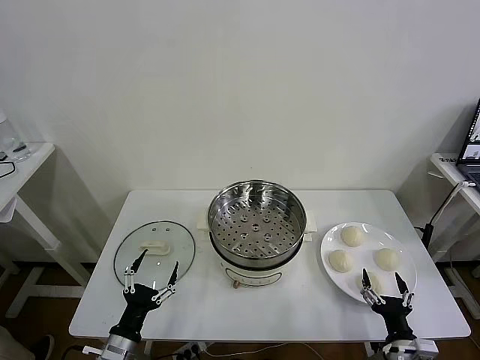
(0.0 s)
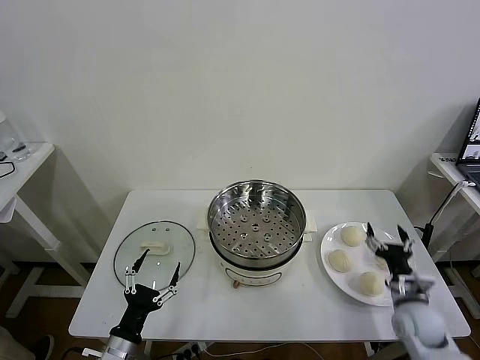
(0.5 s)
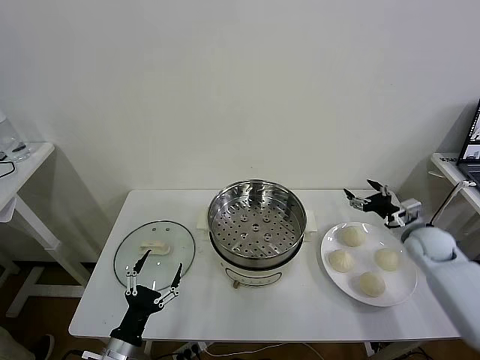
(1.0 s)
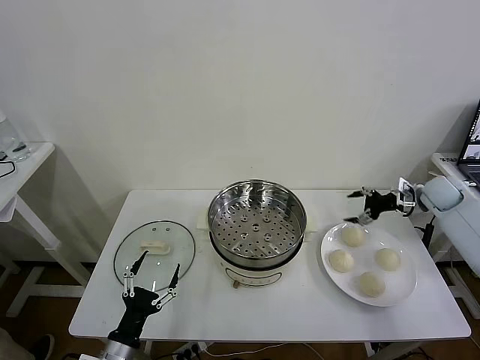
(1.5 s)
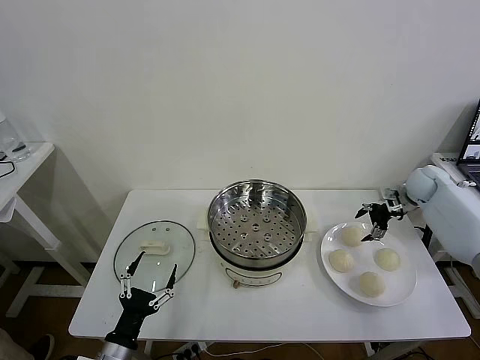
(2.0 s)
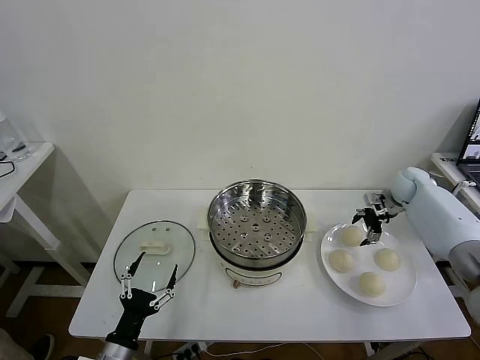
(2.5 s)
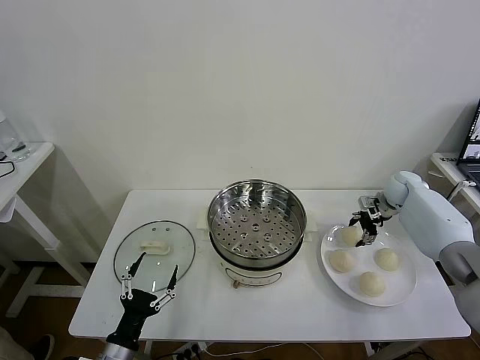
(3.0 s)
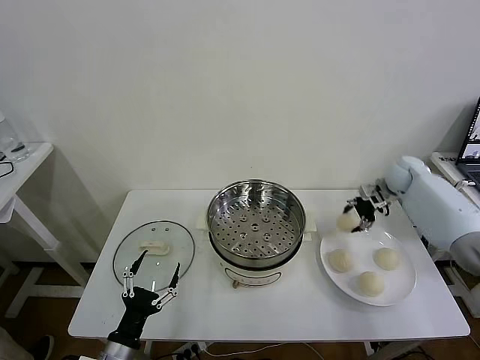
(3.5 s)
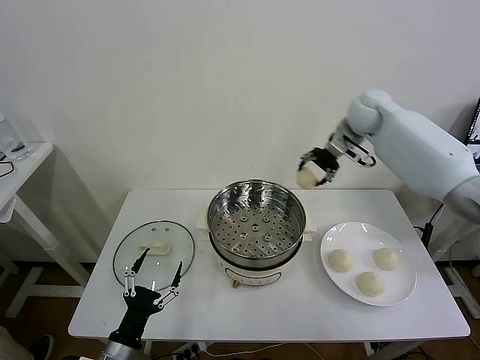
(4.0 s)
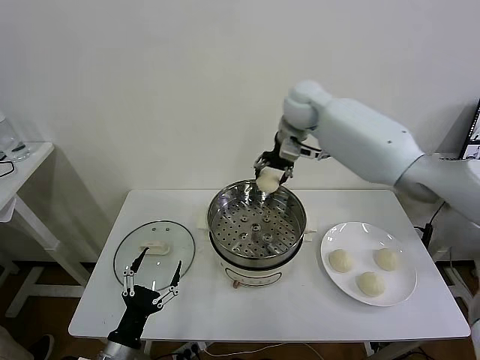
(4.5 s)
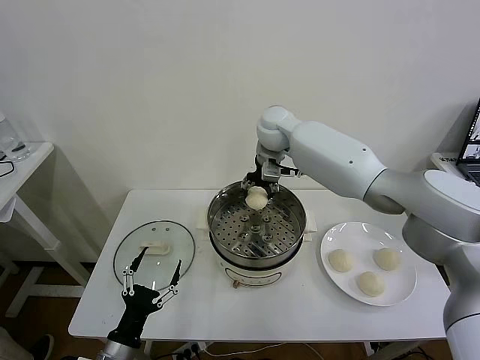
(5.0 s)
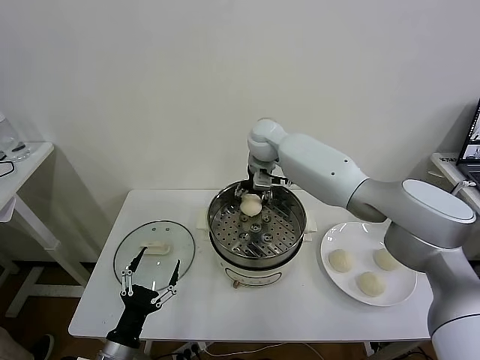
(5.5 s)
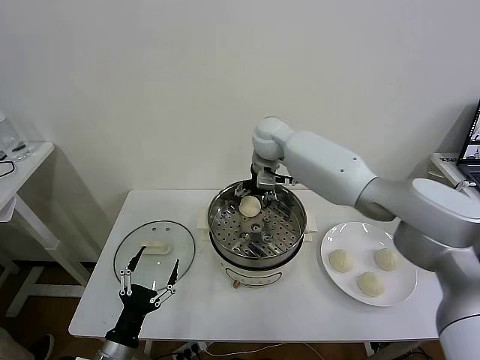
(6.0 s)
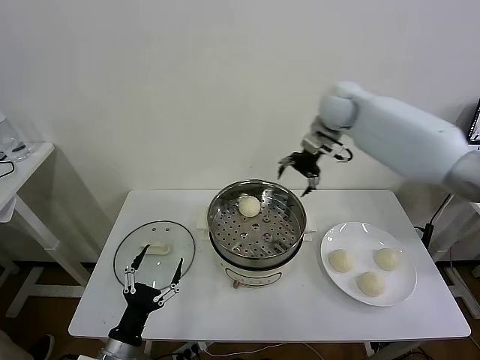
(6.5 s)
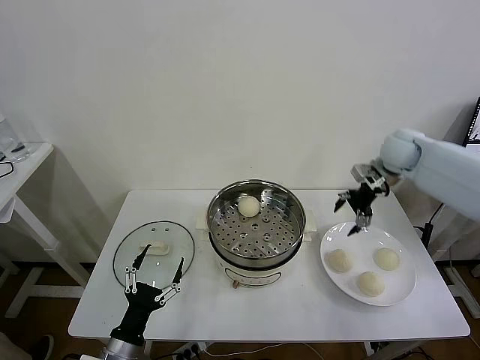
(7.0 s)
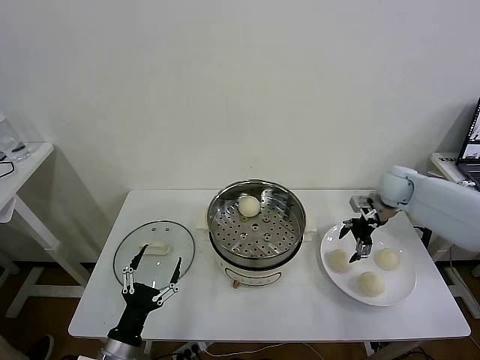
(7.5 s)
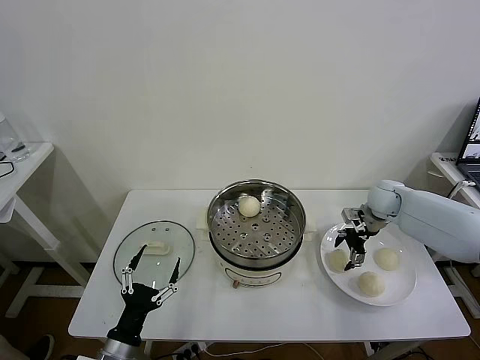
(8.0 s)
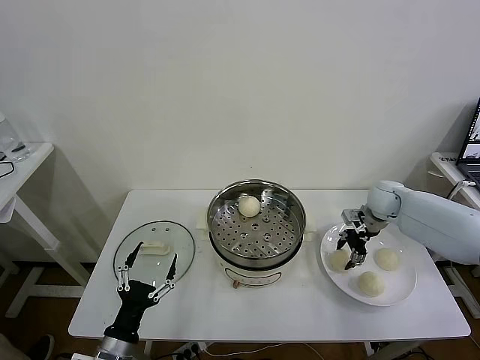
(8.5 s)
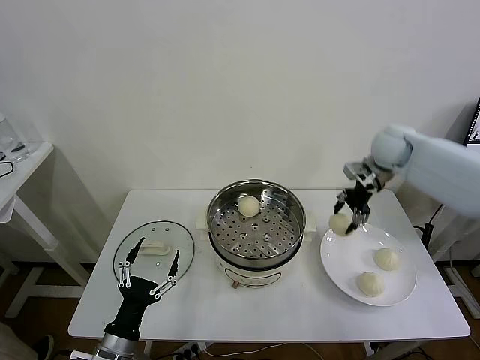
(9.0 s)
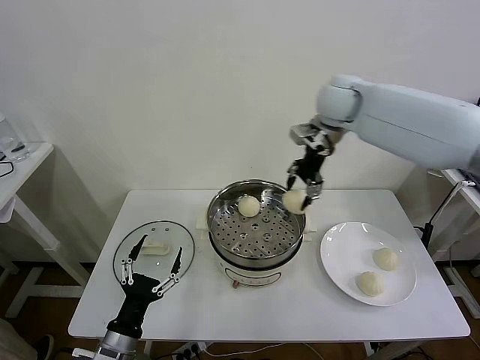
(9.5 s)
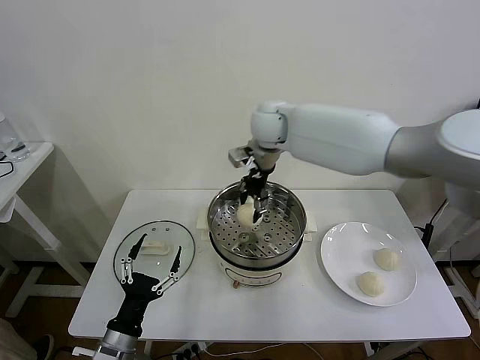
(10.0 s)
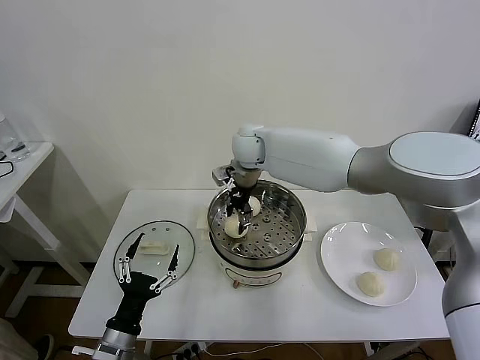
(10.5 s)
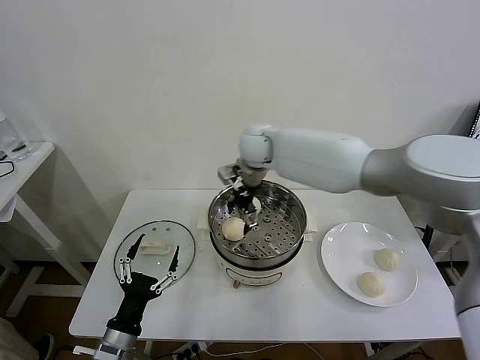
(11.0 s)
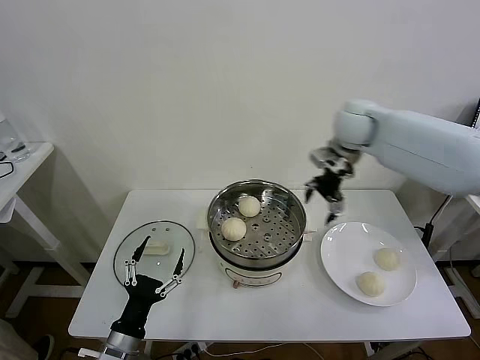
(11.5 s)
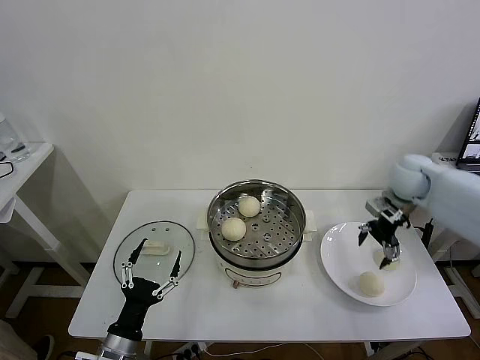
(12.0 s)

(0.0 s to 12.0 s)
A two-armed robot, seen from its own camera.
Task of the whole recording: take steamed baozi put them in steamer then cover it.
Step, 0.0 s - 3.0 s: Grasp the baozi in the plate with right gripper.
Step, 3.5 s - 5.5 s: Place the baozi on the steamer with right gripper.
Step, 6.0 s - 8.0 s: Grasp the baozi in the plate with right gripper.
Step, 8.5 s - 10.5 s: Place the baozi on the steamer with right gripper.
2.0 s - 4.0 s: The right gripper travels to the left and upward by about 30 cm, and closes its fingers.
4.0 s - 6.0 s: The right gripper travels to the left by approximately 15 cm, and opens.
6.0 s - 8.0 s: The right gripper shifts approximately 35 cm to the right and downward.
8.0 s - 10.0 s: The right gripper heads to the left and upward, covering about 35 cm, and closes up.
10.0 s - 12.0 s: The right gripper goes roughly 35 cm to the right, and opens up.

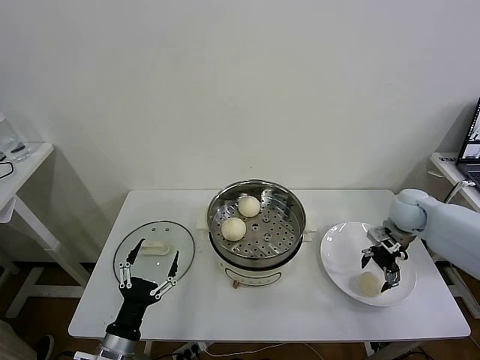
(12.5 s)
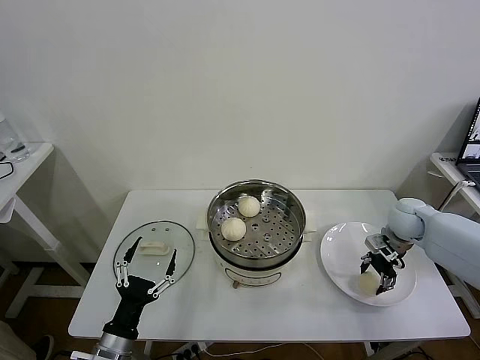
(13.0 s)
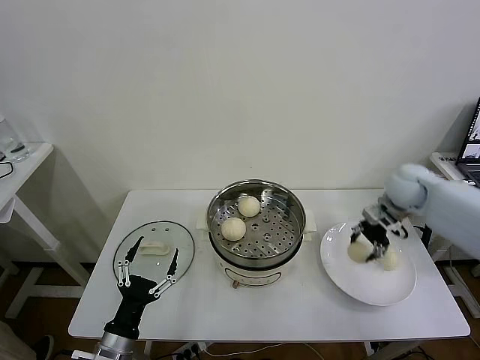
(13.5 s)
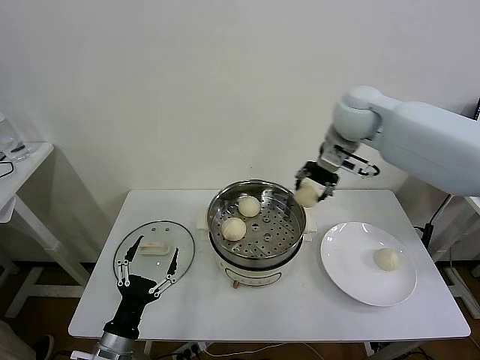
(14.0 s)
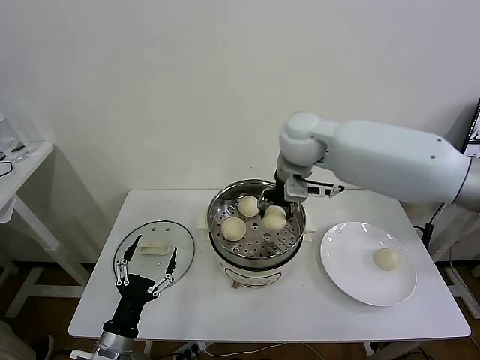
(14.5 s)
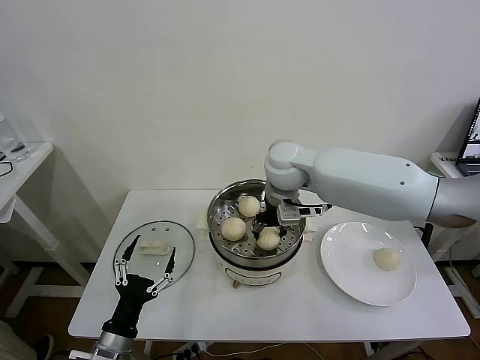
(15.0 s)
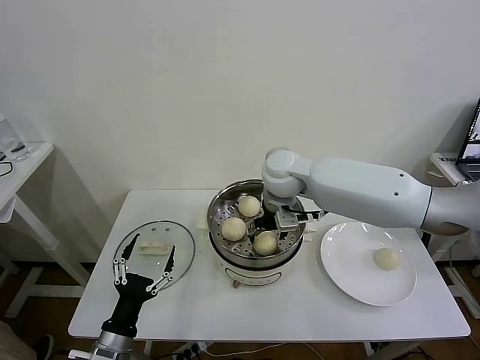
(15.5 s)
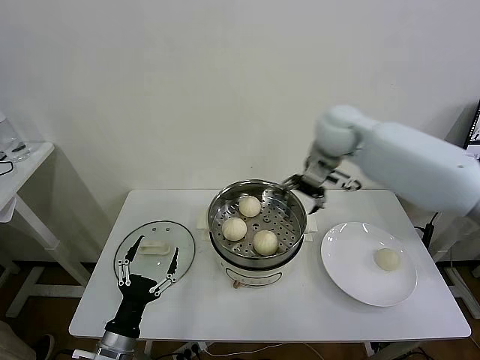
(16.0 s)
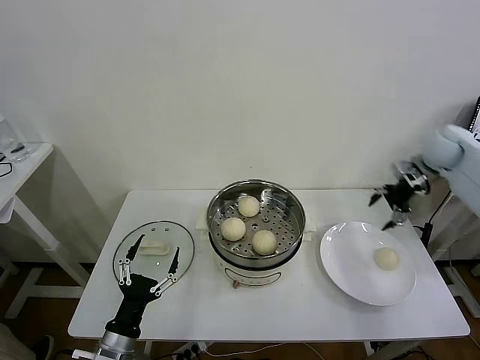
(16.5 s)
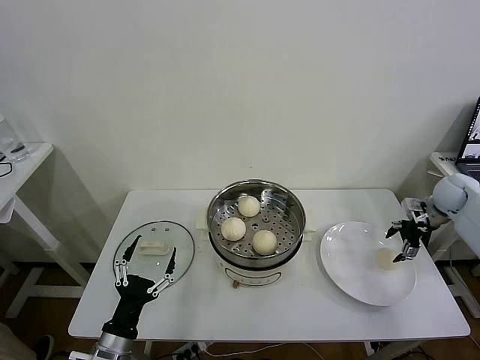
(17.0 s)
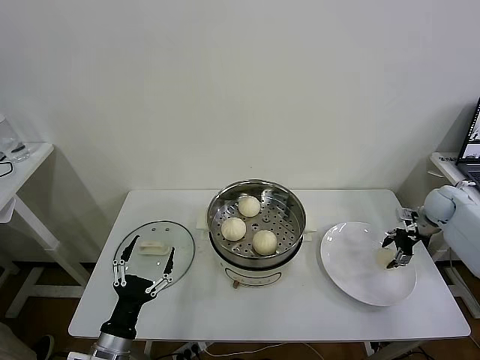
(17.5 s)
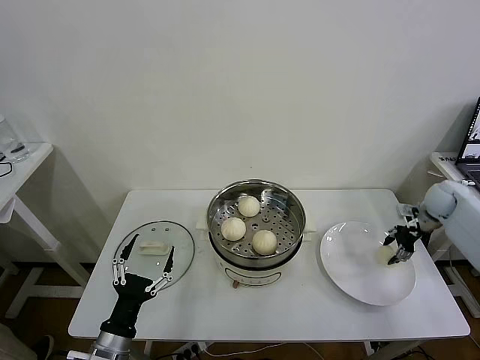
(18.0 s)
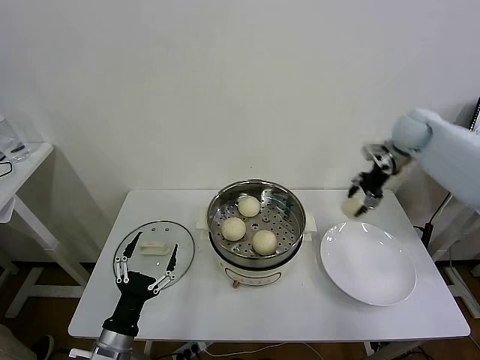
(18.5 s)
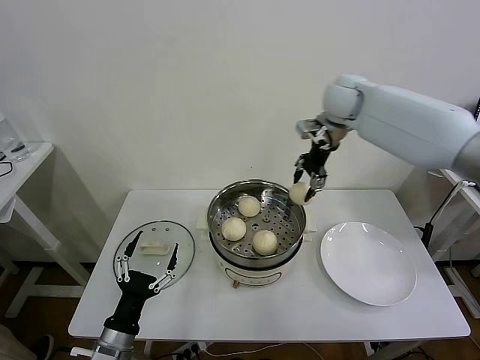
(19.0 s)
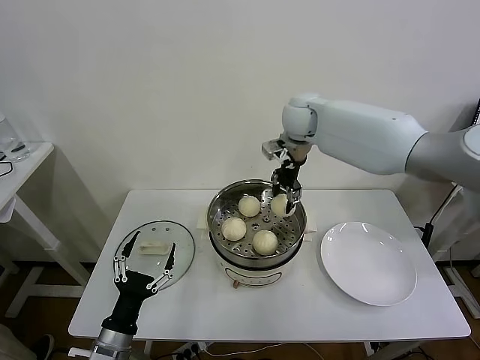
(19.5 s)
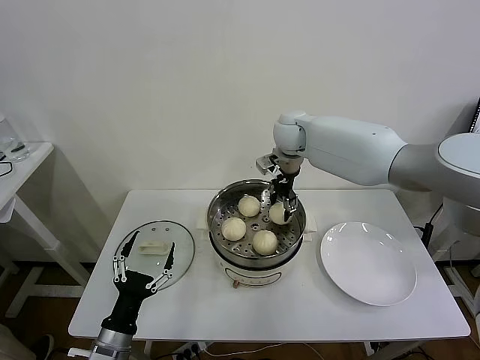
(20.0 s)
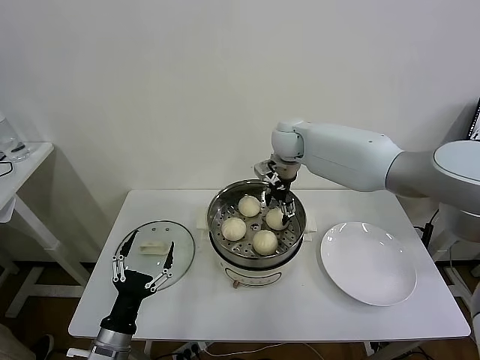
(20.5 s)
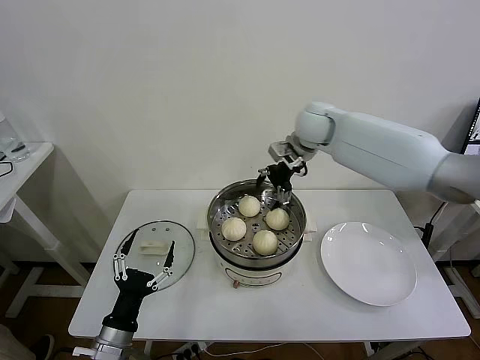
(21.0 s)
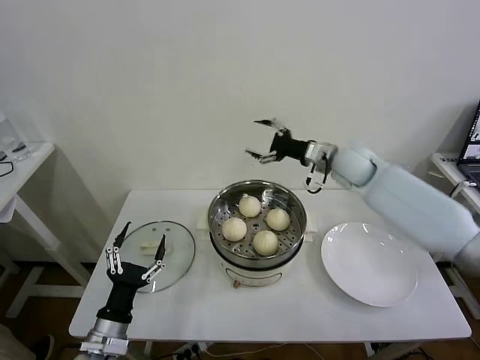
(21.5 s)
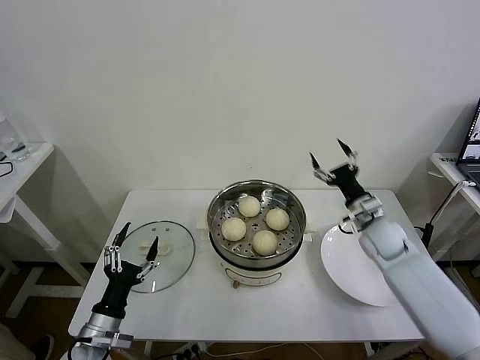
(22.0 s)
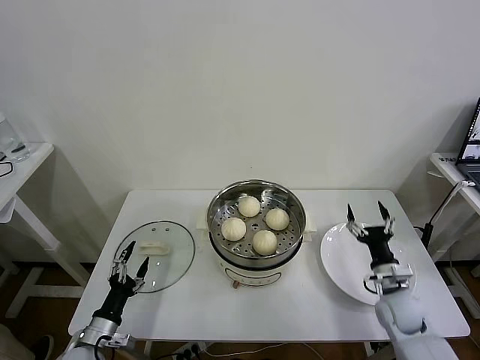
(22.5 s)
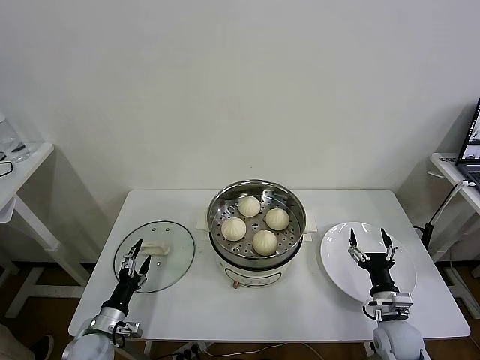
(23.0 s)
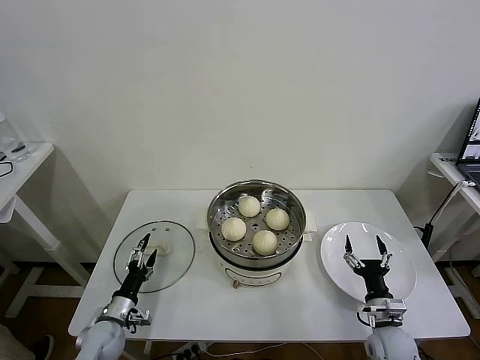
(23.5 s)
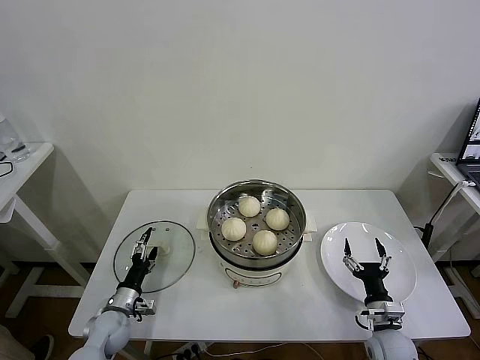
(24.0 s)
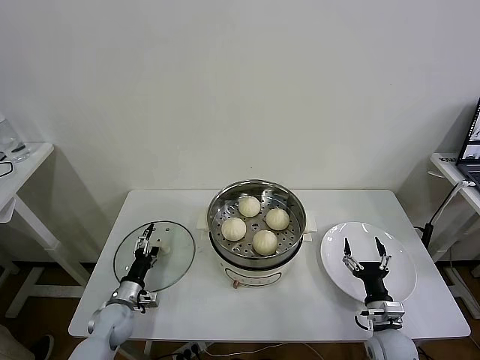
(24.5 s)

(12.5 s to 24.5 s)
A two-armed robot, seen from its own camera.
Task of the whole recording: take steamed baozi put them in steamer then cover it.
Step, 13.5 s - 15.5 s: Place the baozi on the steamer with right gripper.
Step, 16.0 s - 17.5 s: Grasp the baozi in the plate with right gripper.
Step, 18.0 s - 20.5 s: Place the baozi on the steamer with right gripper.
12.5 s - 14.5 s: The right gripper shifts about 35 cm to the left and upward, and closes.
14.5 s - 16.5 s: The right gripper shifts approximately 35 cm to the right, and opens up.
16.5 s - 18.5 s: The right gripper moves to the left, roughly 10 cm, travels downward and back again, some 15 cm each way, and closes its fingers.
18.5 s - 20.5 s: The right gripper heads to the left, covering some 25 cm, and opens.
20.5 s - 22.5 s: The right gripper heads backward, downward and to the right, covering approximately 50 cm. Meanwhile the left gripper shifts some 10 cm to the left and downward.
22.5 s - 24.5 s: The right gripper moves backward and downward, about 10 cm, while the left gripper moves forward and downward, approximately 10 cm.

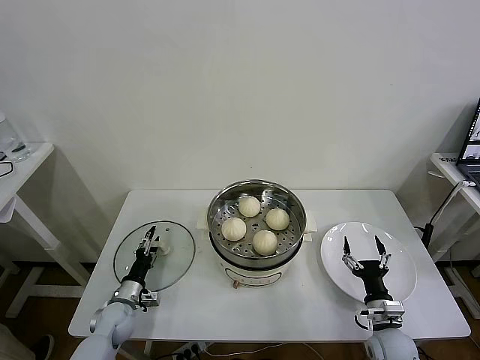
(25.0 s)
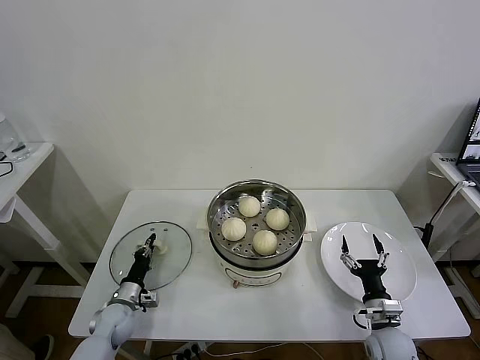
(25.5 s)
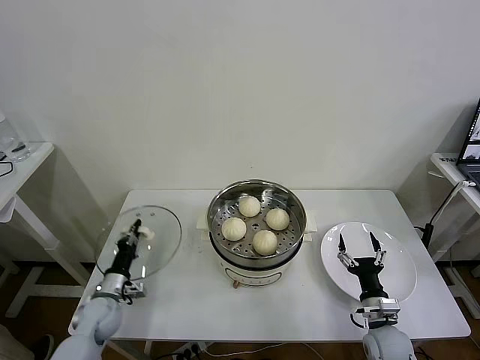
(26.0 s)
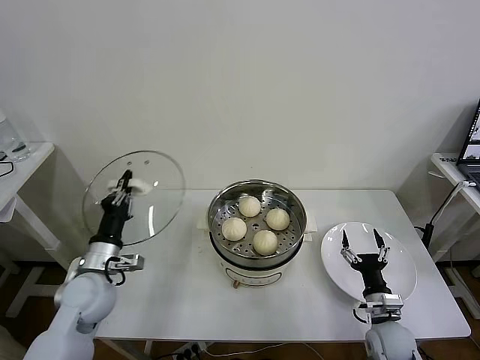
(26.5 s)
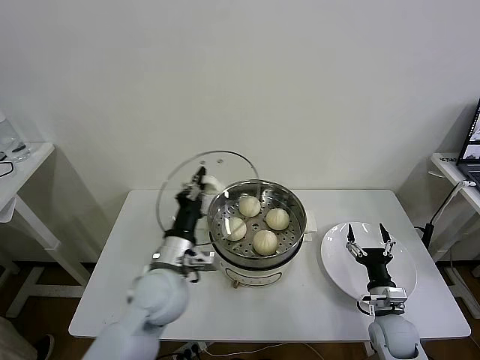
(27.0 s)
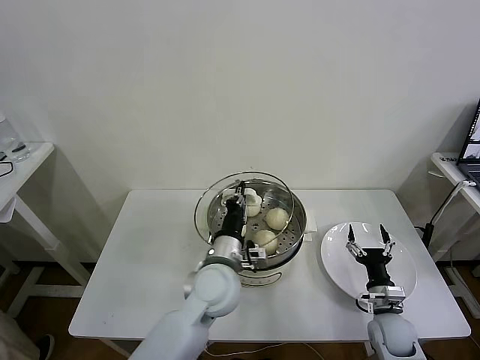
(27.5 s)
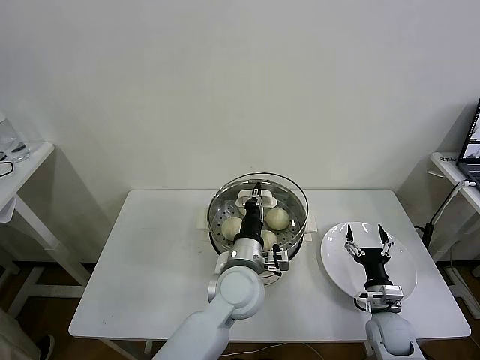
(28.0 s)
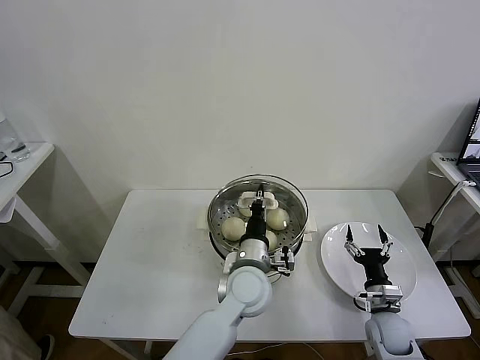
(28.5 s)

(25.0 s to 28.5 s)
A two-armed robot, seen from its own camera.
Task of the whole recording: take steamed baozi put them in steamer then cover it.
25.0 s - 27.0 s: The left gripper goes about 30 cm upward and to the right, and closes.
27.0 s - 28.5 s: The left gripper moves to the right, approximately 20 cm.
